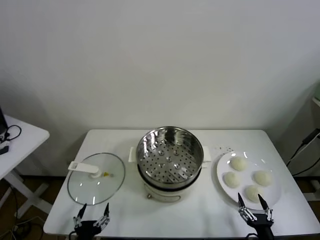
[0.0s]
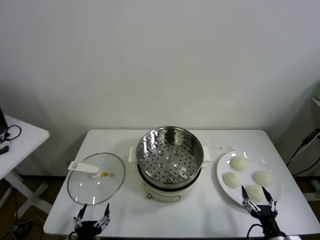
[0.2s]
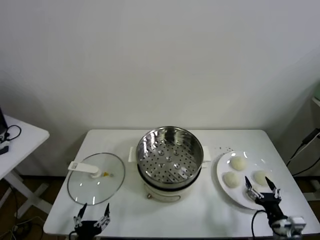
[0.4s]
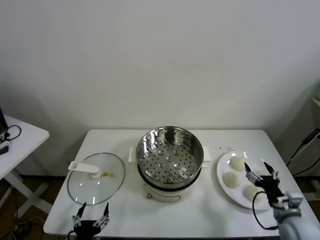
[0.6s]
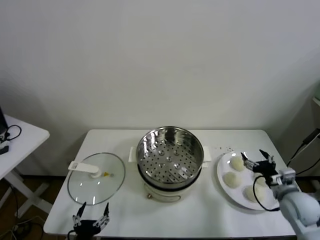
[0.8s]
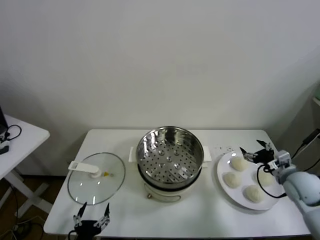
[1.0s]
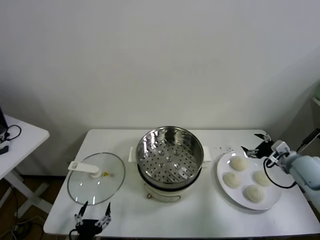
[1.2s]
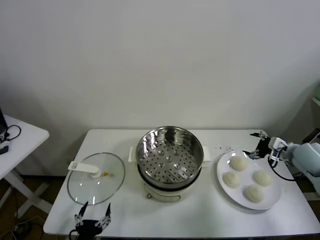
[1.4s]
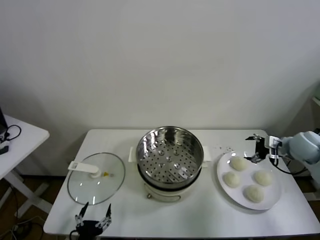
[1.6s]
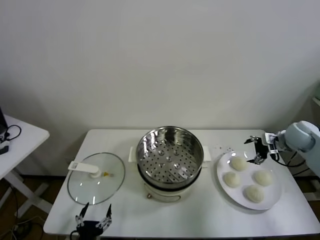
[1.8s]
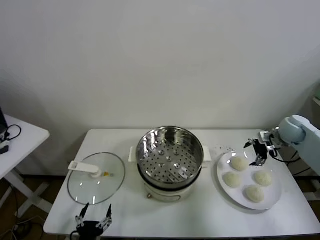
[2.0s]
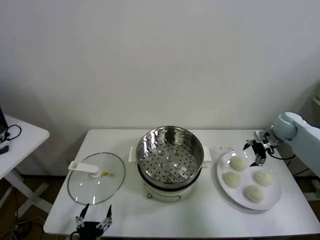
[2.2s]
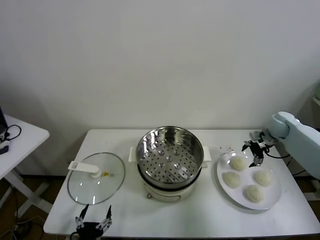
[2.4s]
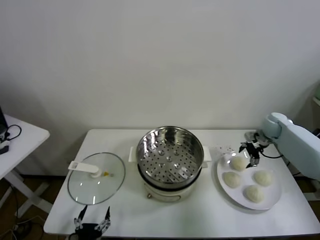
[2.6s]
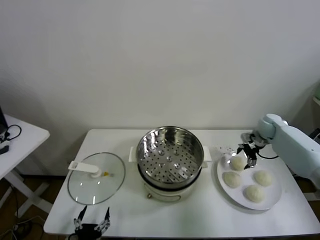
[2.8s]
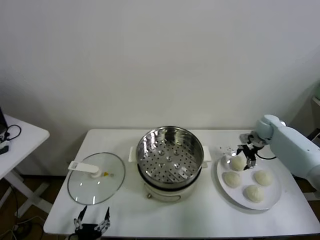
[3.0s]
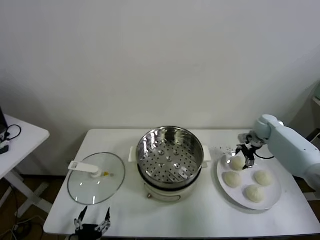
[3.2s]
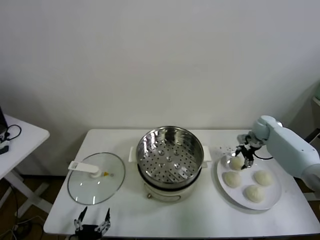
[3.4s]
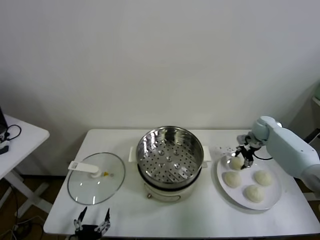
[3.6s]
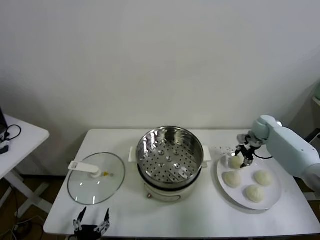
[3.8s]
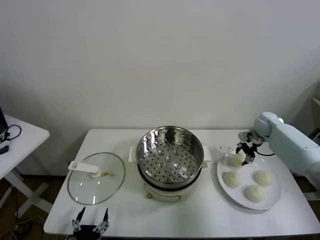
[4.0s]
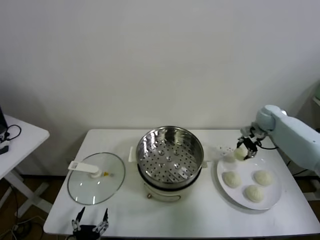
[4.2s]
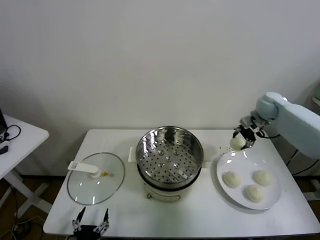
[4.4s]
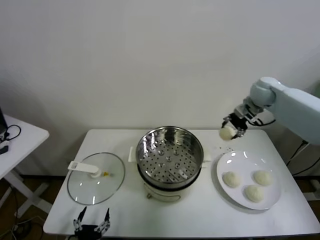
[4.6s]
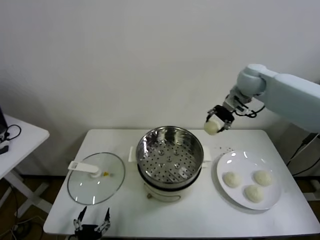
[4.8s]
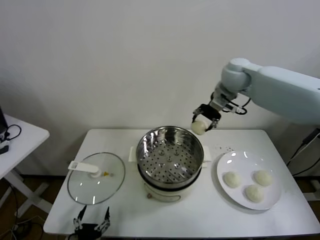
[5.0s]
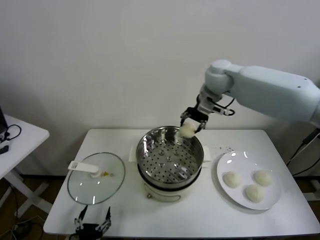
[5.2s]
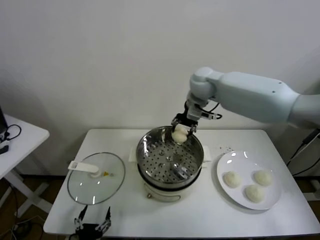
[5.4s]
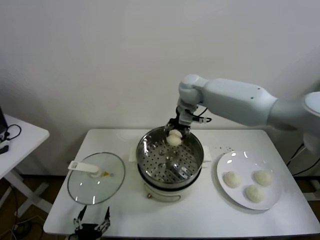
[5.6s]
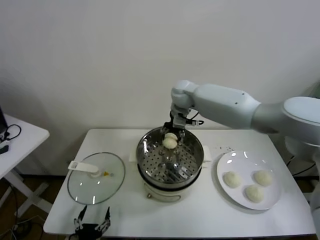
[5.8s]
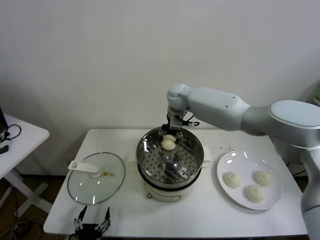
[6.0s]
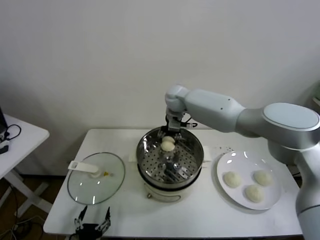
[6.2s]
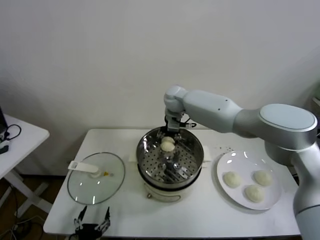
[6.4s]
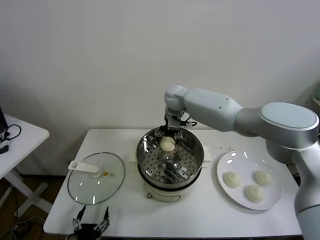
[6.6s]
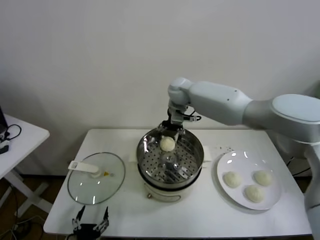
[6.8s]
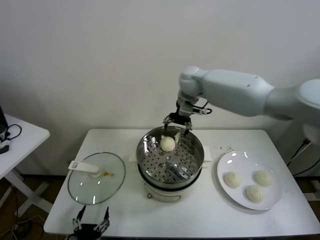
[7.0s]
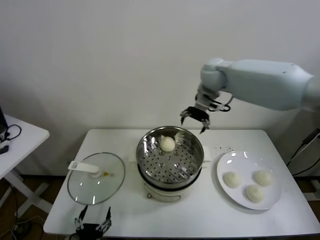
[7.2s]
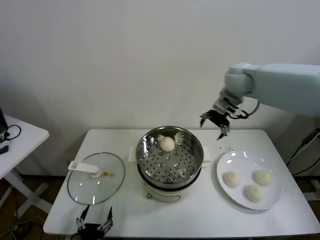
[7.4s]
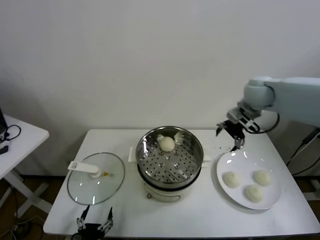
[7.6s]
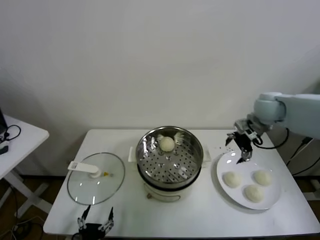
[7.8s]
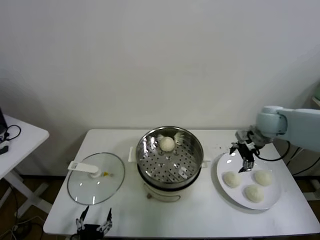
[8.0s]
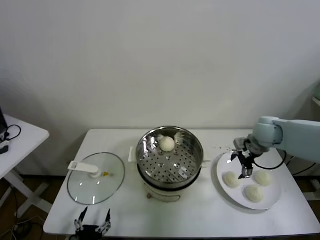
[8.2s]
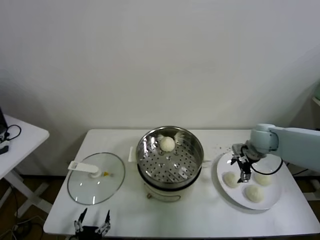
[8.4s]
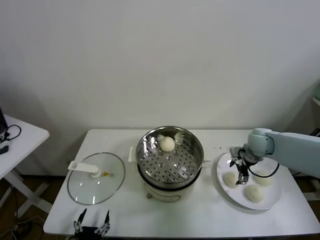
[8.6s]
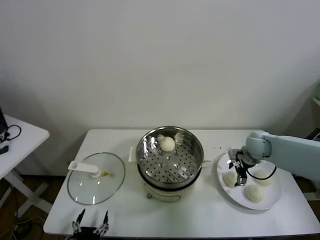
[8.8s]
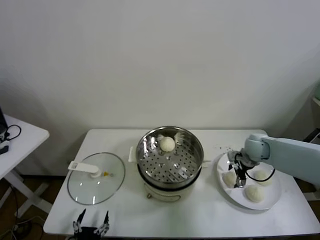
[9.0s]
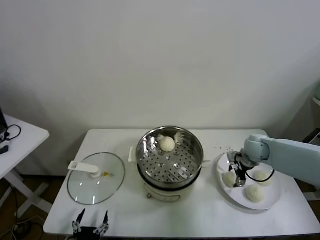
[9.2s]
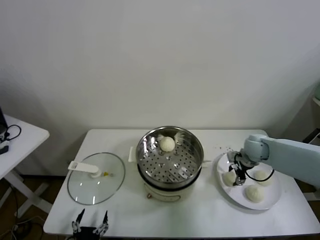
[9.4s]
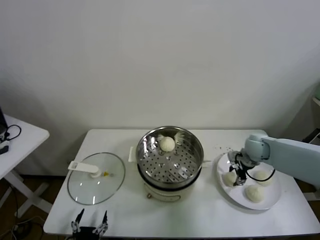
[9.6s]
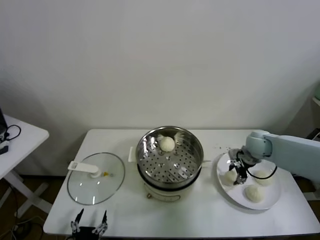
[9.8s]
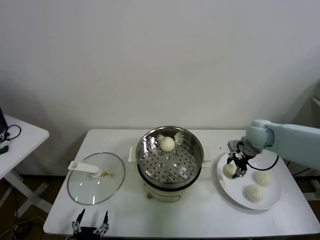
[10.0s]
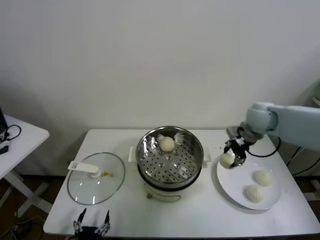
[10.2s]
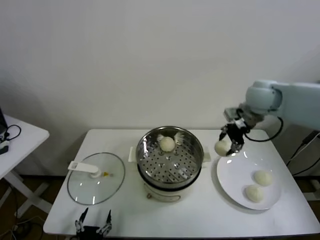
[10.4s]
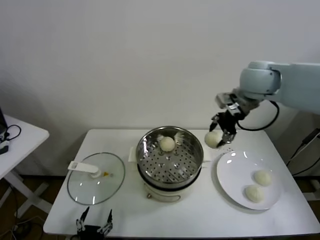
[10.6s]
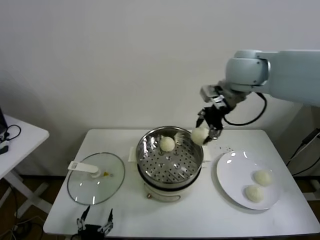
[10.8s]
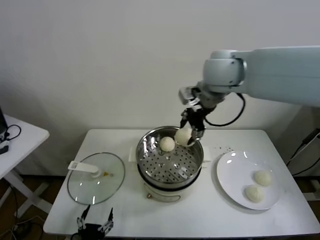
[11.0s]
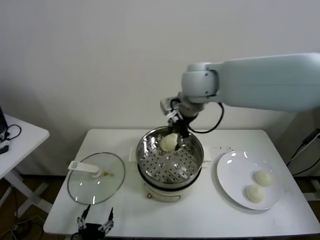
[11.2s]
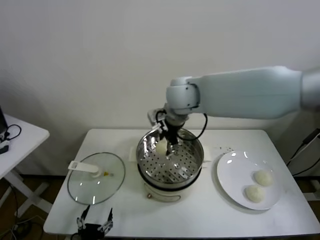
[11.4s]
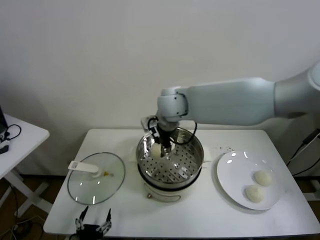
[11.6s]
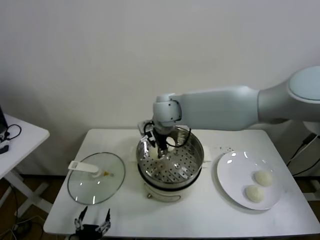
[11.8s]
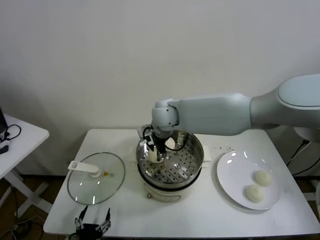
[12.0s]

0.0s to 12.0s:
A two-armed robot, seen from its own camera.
Task of the whole recording: take steamed baozi put them in steamer.
Step, 0.0s to 3.6s: Grasp the baozi in the plate with right gripper.
Step, 3.8s to 6.6s: Place the baozi on the steamer with right gripper.
Step, 7.0s to 9.4s: Grasp the baozi in the plate with right gripper.
1.6s to 3.0s: The right gripper moves forward and downward, approximately 15 cm.
3.0s to 4.4s: The right gripper heads upward, covering about 15 cm, and closes its fingers.
4.4s to 6.0s: The right gripper shifts roughly 30 cm to the left.
6.0s to 7.6s: The right gripper moves to the right, about 25 cm, and opens up.
7.6s to 9.0s: The right gripper is displaced downward by about 20 cm.
9.0s to 10.4s: The right gripper moves upward, approximately 25 cm, and closes.
10.4s to 12.0s: The right gripper shifts about 25 cm to the left.

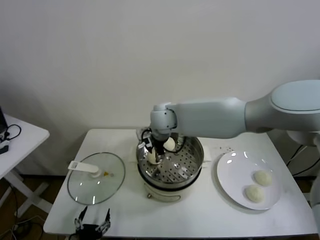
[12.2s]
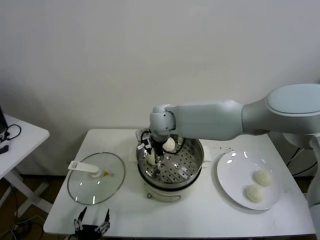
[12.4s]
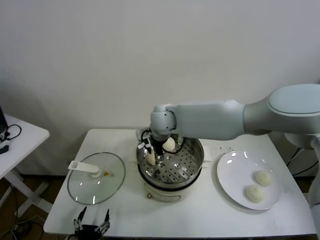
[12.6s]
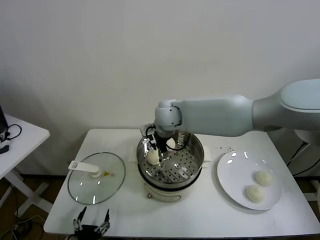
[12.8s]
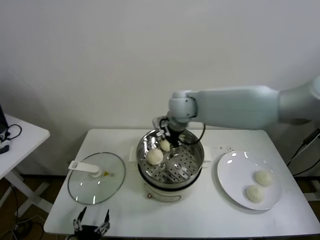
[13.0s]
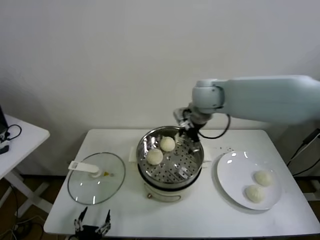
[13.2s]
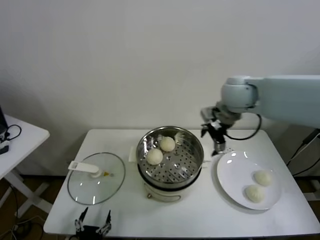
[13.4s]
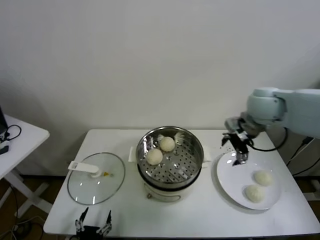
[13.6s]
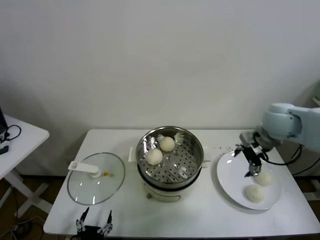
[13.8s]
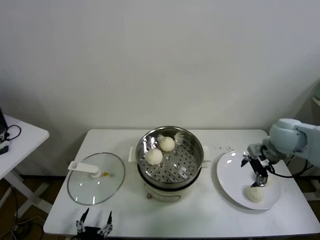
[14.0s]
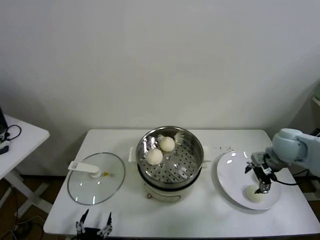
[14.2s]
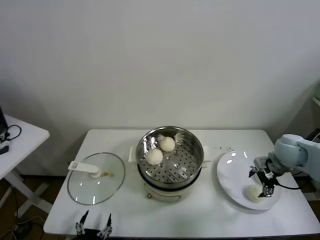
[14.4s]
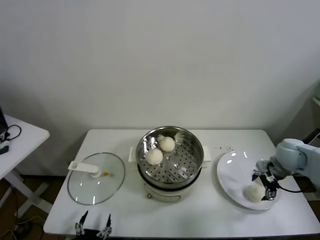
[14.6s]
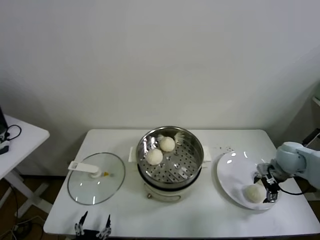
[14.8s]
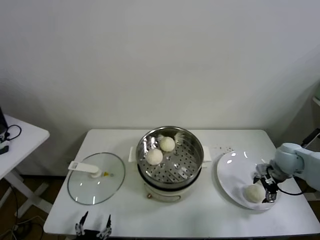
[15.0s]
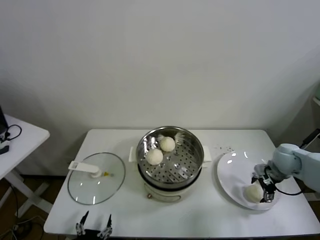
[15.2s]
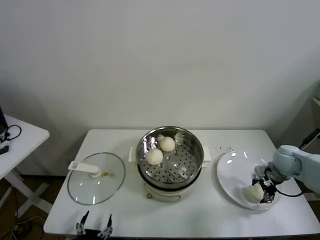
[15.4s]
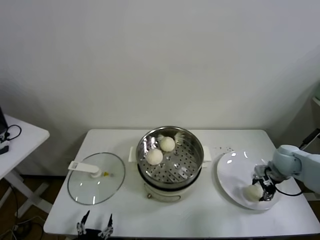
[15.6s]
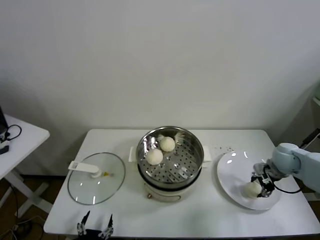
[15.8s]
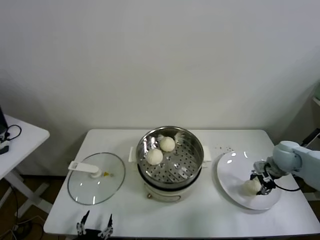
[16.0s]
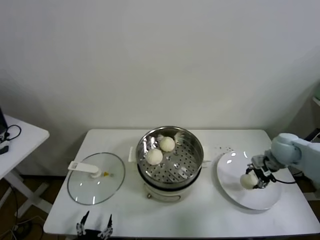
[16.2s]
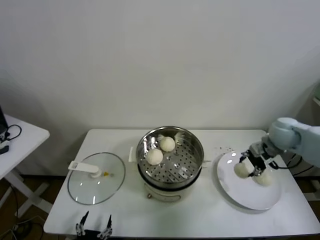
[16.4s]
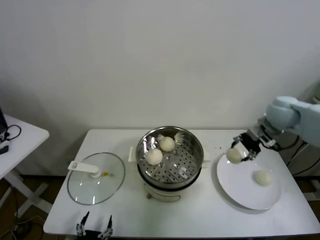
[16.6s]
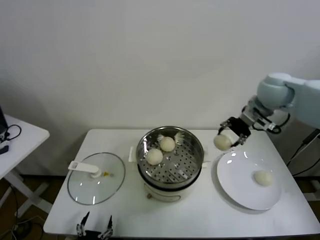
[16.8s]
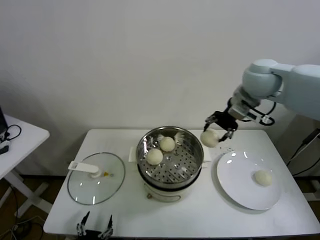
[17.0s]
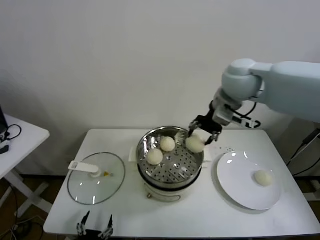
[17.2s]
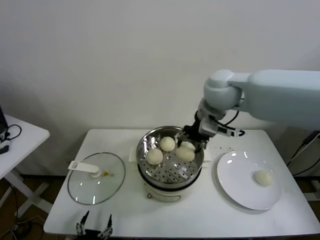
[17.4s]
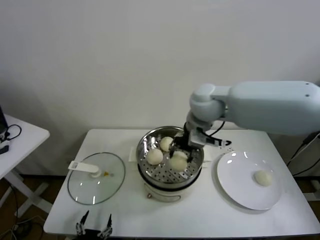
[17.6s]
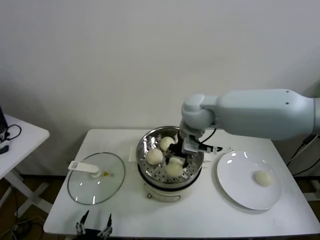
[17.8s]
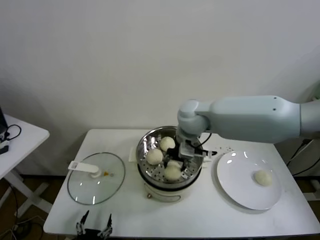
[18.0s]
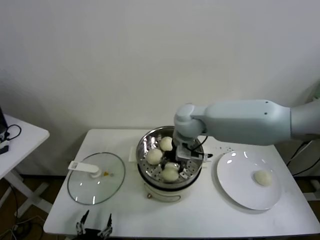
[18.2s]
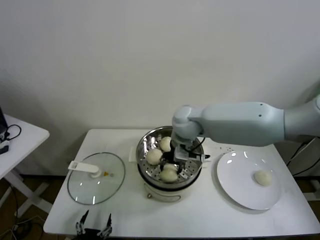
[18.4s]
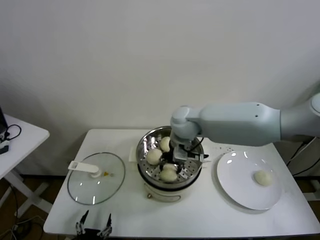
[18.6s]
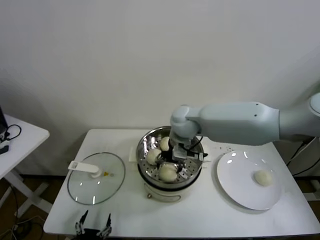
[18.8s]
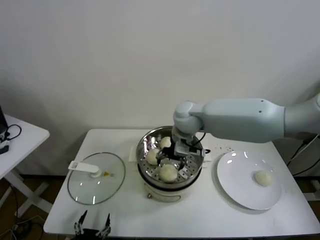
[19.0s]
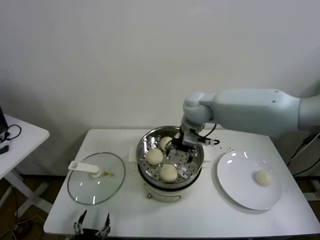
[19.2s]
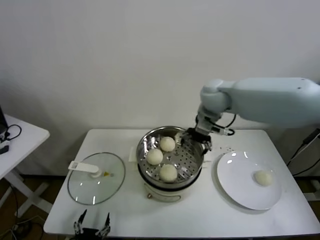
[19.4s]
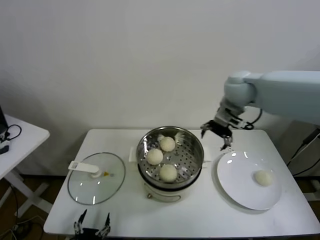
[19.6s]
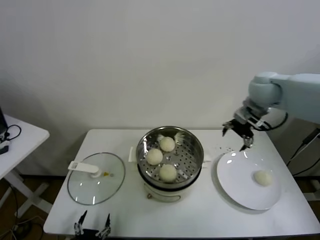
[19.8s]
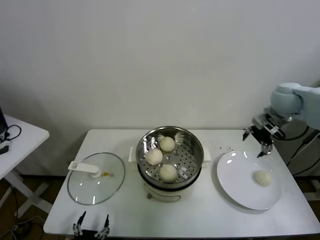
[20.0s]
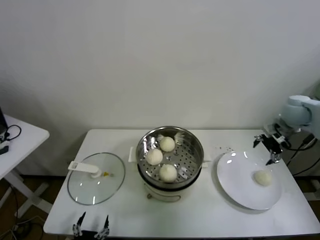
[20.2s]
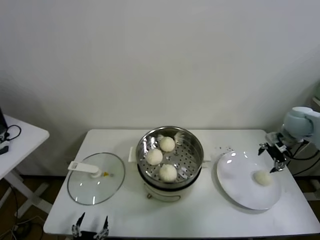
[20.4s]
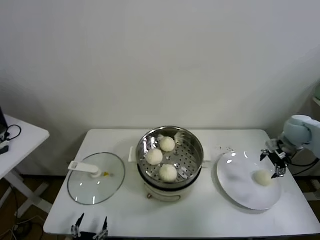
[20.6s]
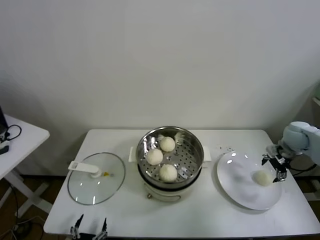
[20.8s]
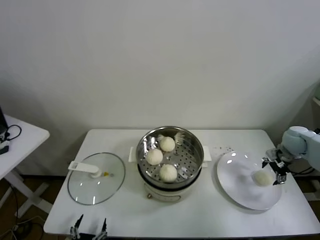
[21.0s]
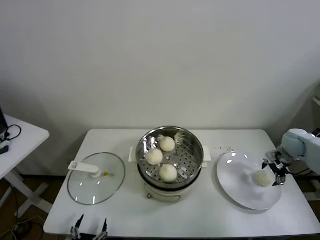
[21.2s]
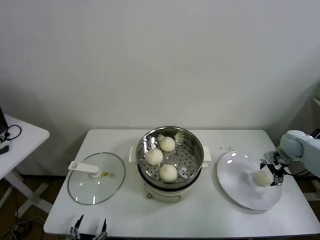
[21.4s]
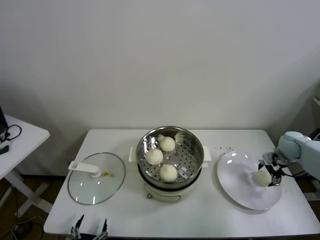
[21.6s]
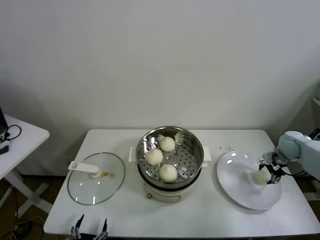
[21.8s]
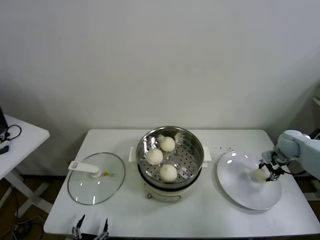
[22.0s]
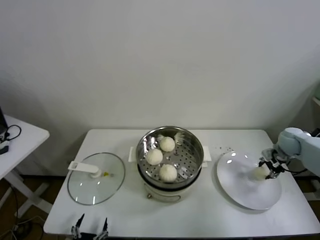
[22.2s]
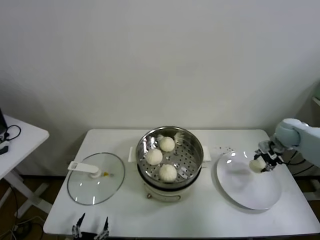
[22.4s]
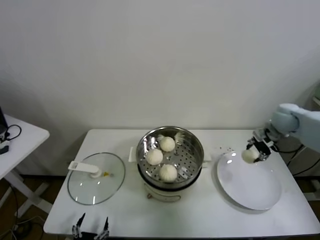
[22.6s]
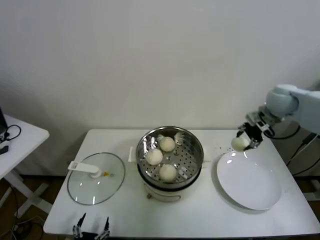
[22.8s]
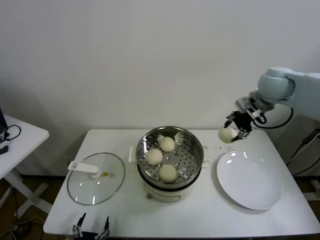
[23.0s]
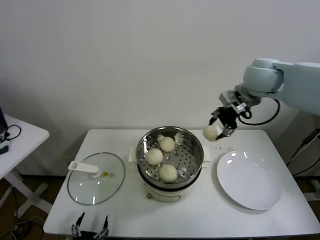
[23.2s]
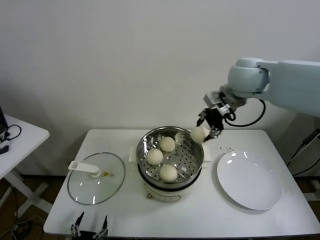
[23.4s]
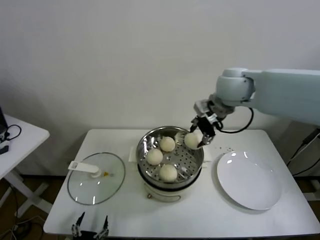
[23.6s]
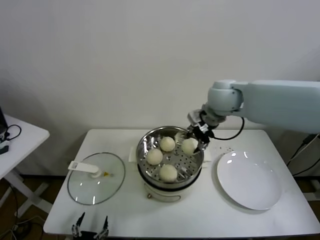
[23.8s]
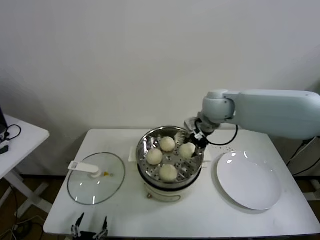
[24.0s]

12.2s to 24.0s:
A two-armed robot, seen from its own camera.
Task of the whole recording: take steamed baozi put them in steamer.
Step, 13.0s to 15.4s: Grasp the baozi in the plate with right gripper.
Step, 15.6s to 19.0s: Place the baozi on the steamer with right gripper.
Step, 19.2s to 22.0s: Grasp the baozi in the plate with right gripper.
12.2s to 13.6s: The right gripper heads to the right, covering roughly 30 cm, and opens its fingers.
13.6s to 15.2s: The right gripper is displaced downward and to the right by roughly 25 cm.
15.2s to 16.6s: The right gripper heads upward and to the left, covering approximately 20 cm, and closes up.
16.6s to 18.2s: The right gripper goes about 30 cm to the left.
18.2s to 19.6s: The right gripper goes approximately 20 cm to the right and upward, and opens up.
19.6s to 21.0s: The right gripper moves to the right and downward, about 30 cm.
21.0s to 22.6s: The right gripper heads upward and to the left, covering roughly 10 cm, and closes up.
22.6s to 24.0s: The right gripper heads to the left, covering approximately 25 cm.
